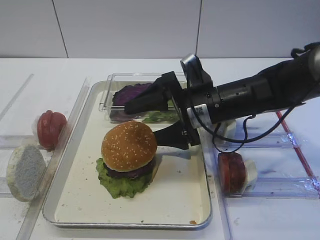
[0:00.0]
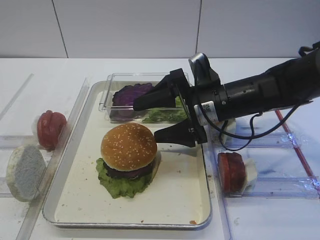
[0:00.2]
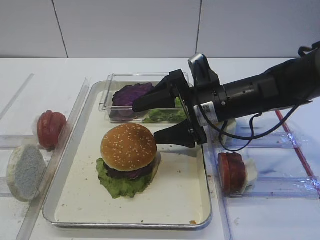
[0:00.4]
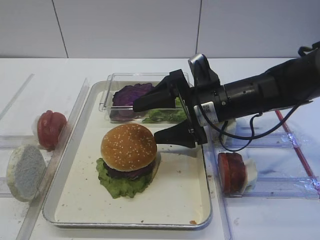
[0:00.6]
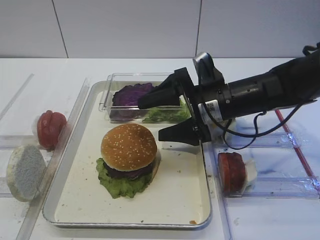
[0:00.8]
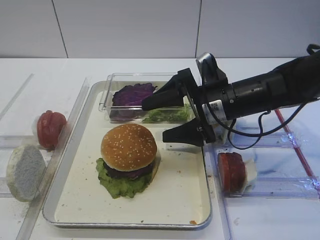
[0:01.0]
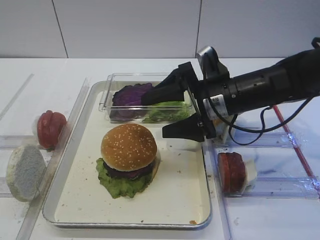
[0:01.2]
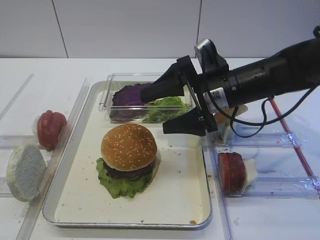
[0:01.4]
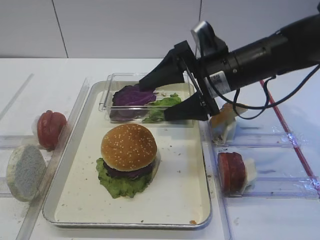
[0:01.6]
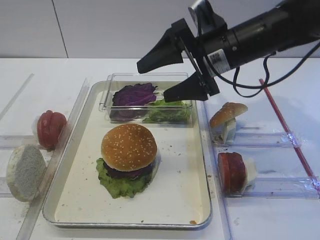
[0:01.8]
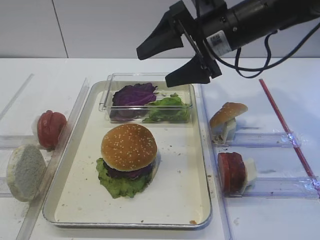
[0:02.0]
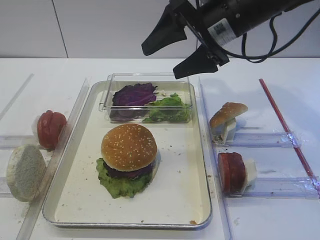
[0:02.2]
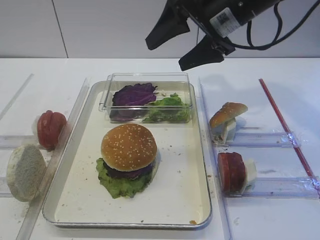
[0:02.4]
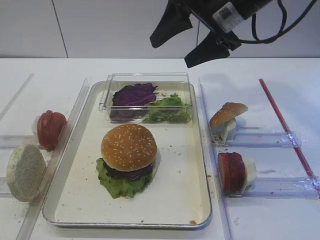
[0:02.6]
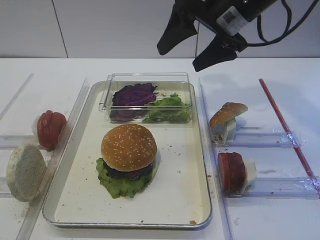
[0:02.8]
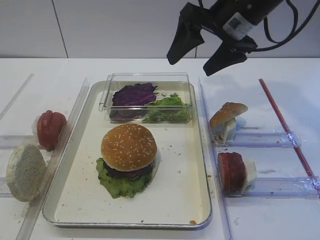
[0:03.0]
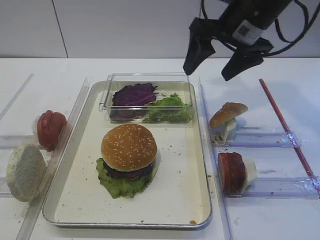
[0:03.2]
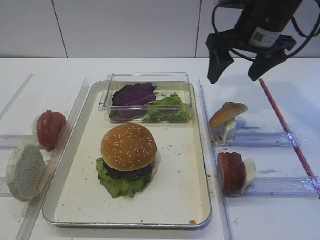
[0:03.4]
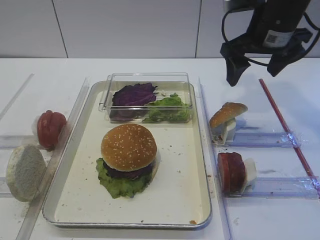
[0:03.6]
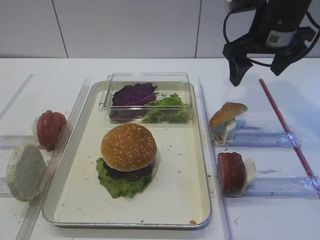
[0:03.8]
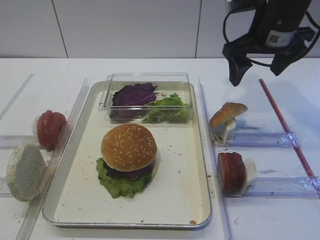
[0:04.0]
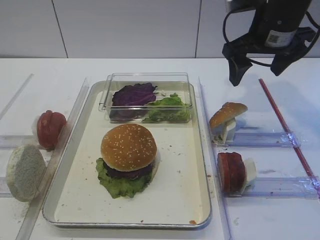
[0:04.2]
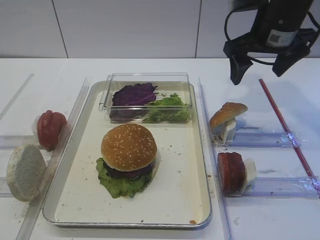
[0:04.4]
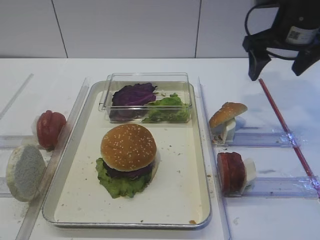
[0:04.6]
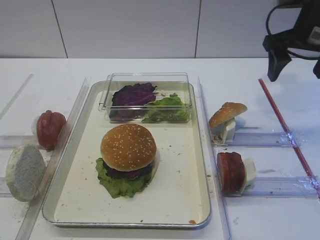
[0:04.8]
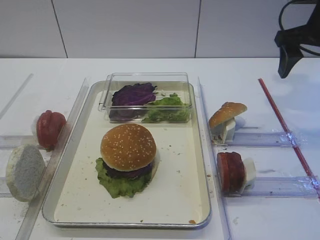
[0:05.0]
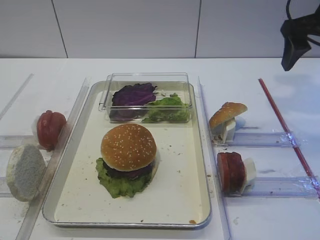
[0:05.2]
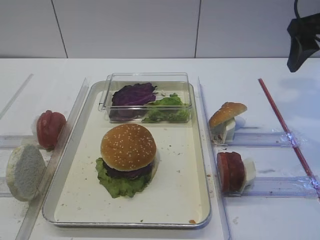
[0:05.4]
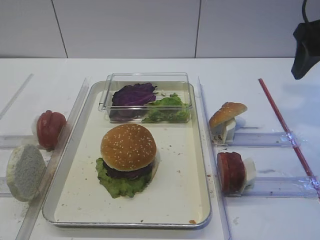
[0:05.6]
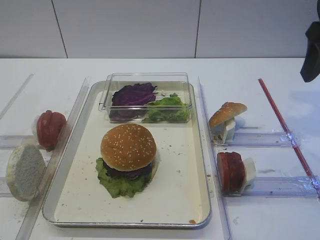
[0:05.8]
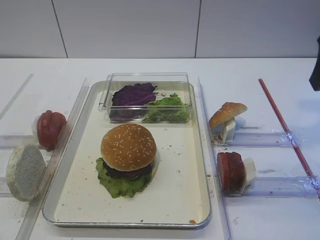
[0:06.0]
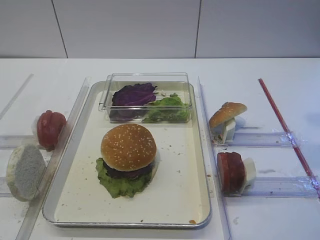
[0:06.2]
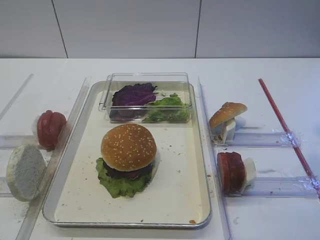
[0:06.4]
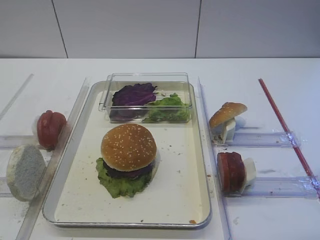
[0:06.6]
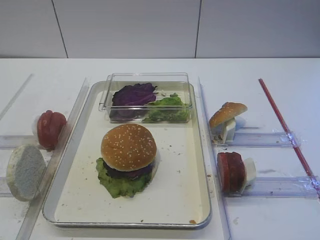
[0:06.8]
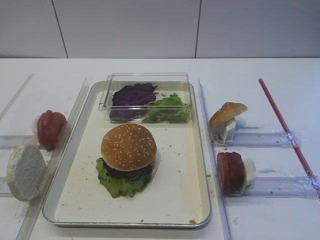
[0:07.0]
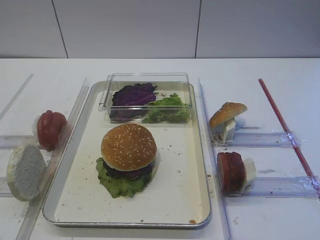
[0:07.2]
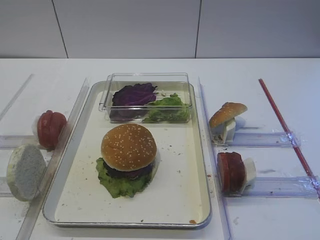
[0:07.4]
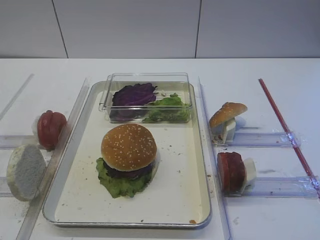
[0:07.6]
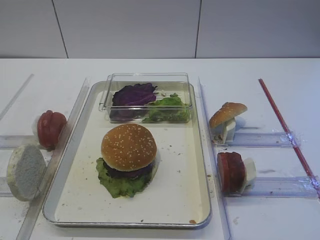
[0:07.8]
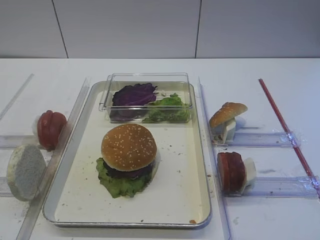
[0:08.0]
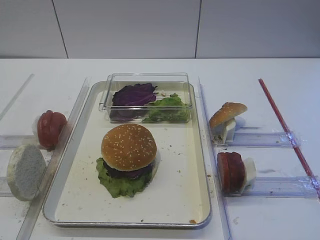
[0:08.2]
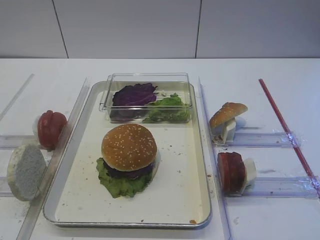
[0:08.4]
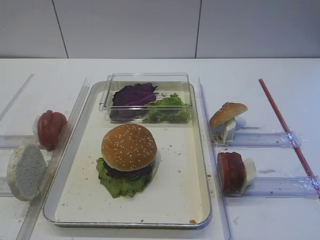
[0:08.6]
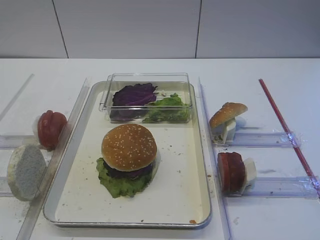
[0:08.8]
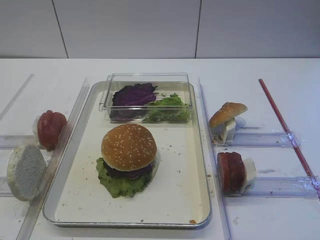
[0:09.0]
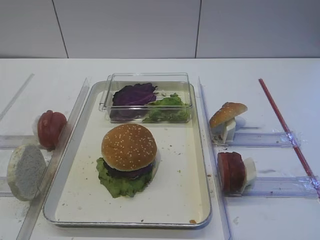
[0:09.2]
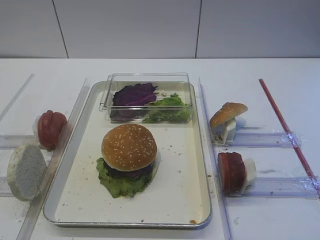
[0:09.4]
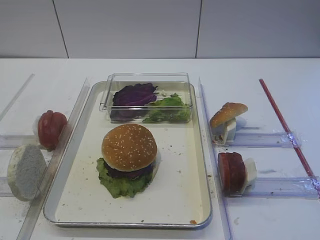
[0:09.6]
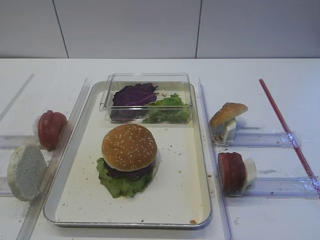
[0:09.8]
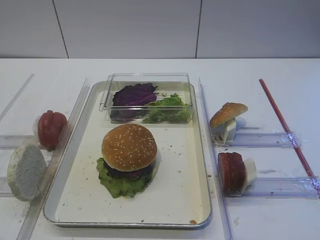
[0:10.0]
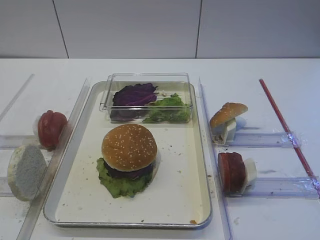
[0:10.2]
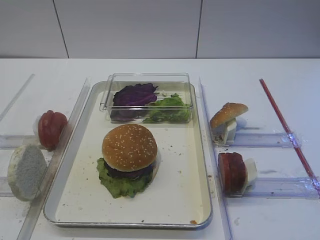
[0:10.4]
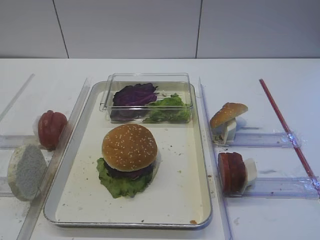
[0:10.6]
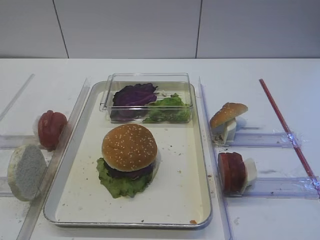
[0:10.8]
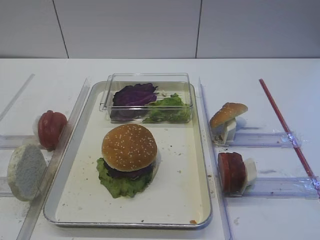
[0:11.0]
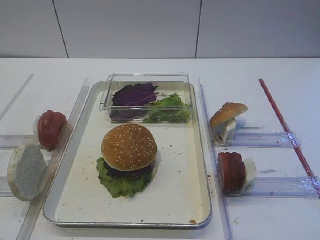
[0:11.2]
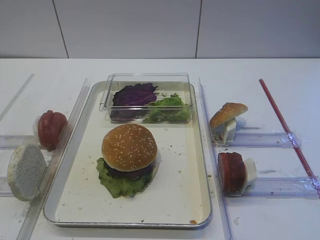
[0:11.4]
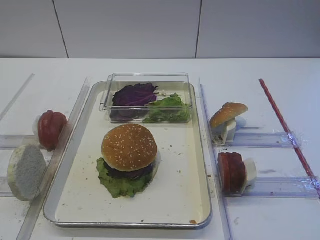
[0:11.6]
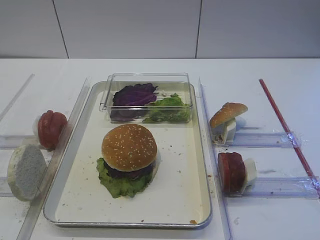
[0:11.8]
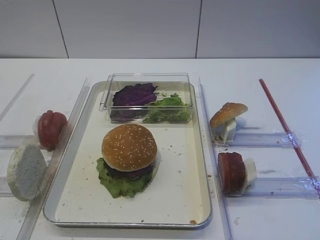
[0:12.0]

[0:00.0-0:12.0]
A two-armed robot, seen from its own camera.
0:00.0 to 0:01.6: The right gripper shifts by some 5 cm.
0:01.6 to 0:03.0: The right gripper moves upward, about 10 cm.
0:03.0 to 0:04.4: The right gripper moves to the right, roughly 5 cm.
0:04.4 to 0:06.0: The right gripper heads backward, to the right and upward, covering some 15 cm.
0:09.0 to 0:10.4: The right gripper shifts by some 5 cm.
0:10.4 to 0:12.0: The two grippers keep their place.

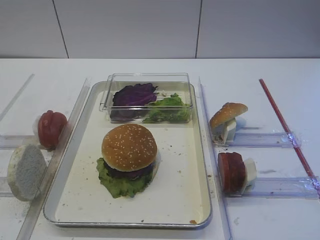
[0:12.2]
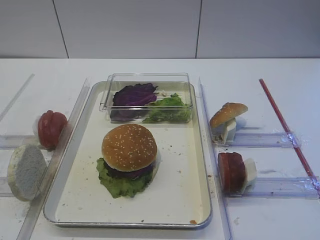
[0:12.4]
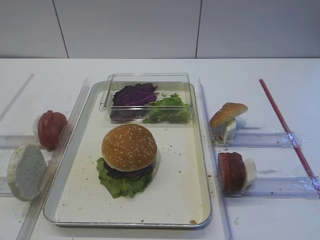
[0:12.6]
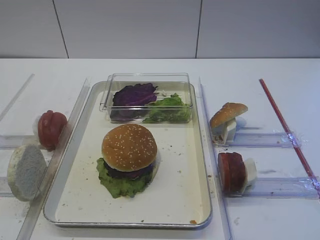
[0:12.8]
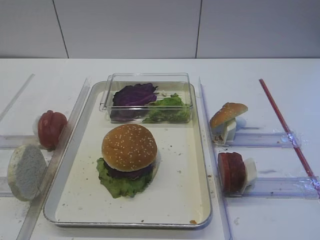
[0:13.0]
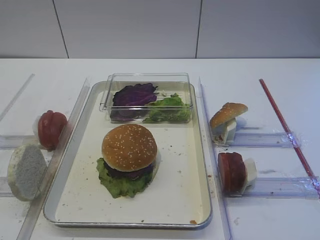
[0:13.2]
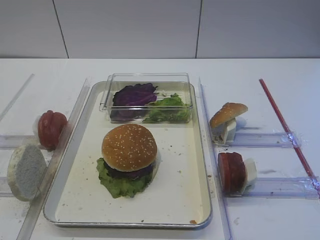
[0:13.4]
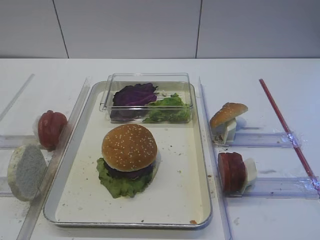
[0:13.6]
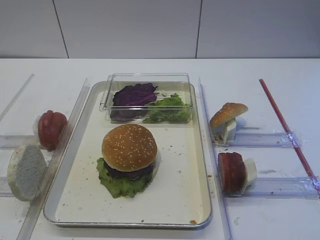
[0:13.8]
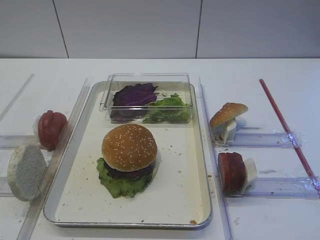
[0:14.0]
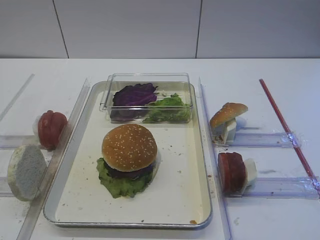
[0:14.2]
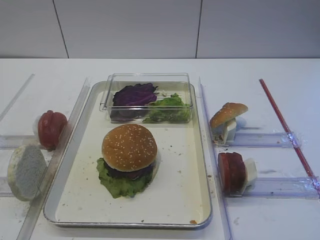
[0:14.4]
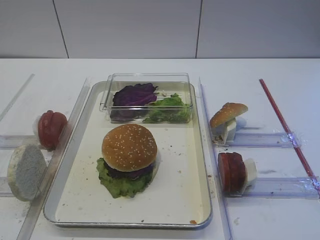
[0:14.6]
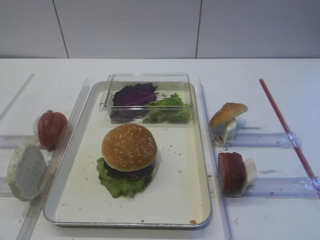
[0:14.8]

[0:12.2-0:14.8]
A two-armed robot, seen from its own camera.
0:12.2 to 0:14.8: Both grippers stay about where they are.

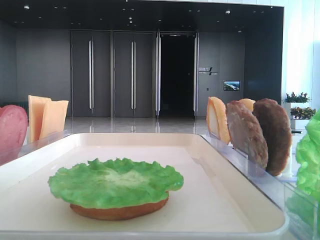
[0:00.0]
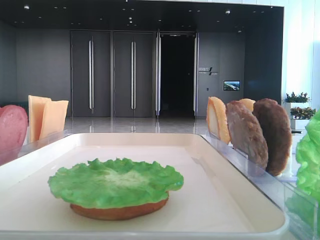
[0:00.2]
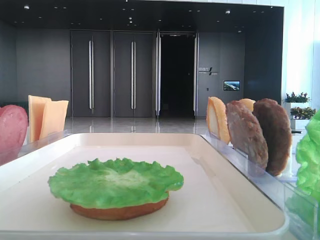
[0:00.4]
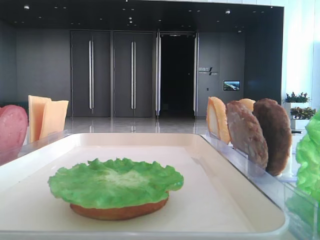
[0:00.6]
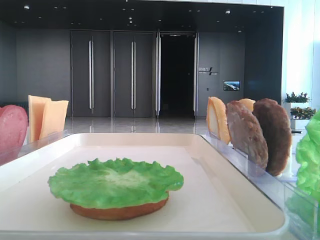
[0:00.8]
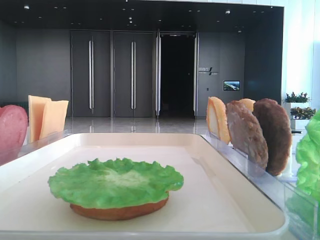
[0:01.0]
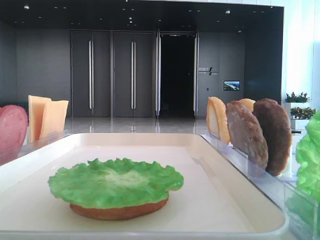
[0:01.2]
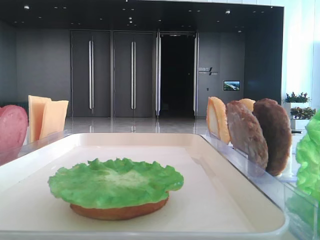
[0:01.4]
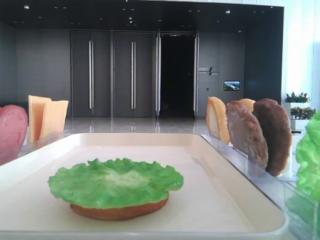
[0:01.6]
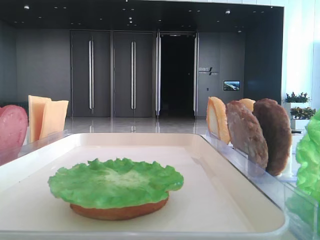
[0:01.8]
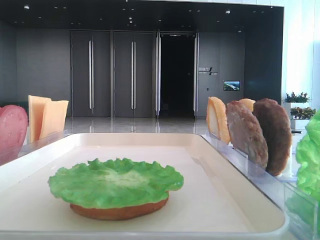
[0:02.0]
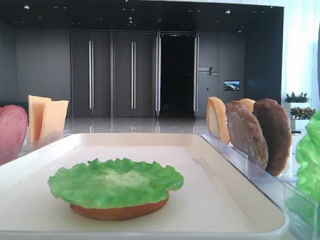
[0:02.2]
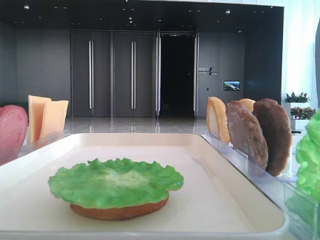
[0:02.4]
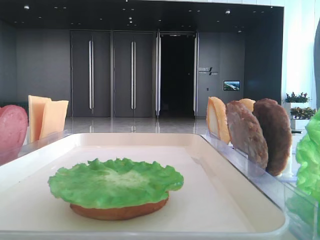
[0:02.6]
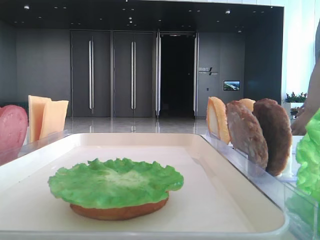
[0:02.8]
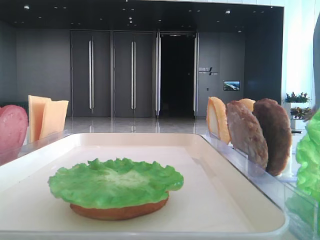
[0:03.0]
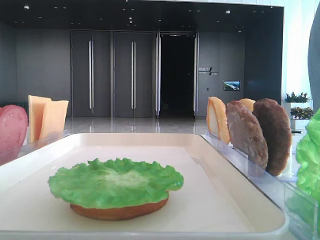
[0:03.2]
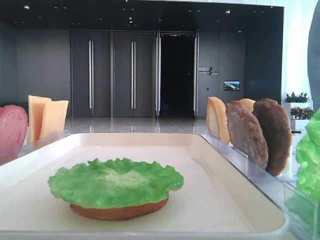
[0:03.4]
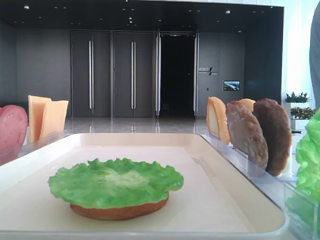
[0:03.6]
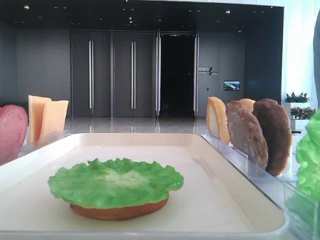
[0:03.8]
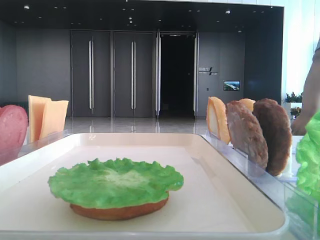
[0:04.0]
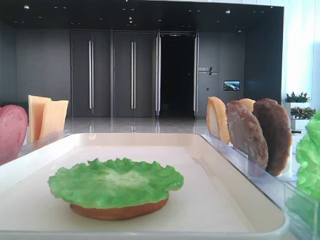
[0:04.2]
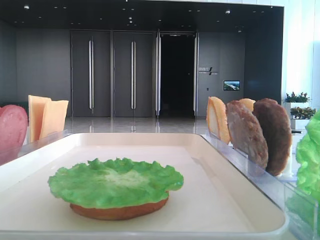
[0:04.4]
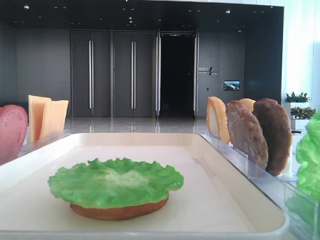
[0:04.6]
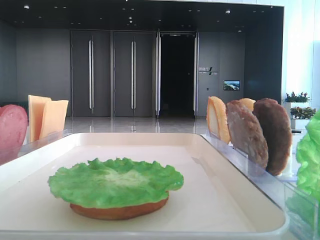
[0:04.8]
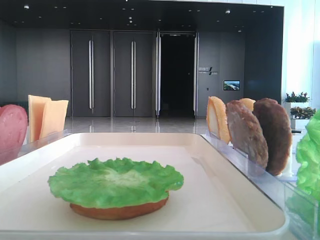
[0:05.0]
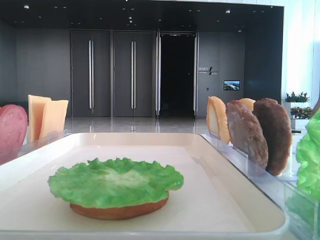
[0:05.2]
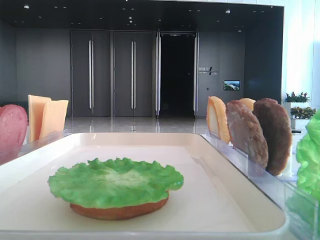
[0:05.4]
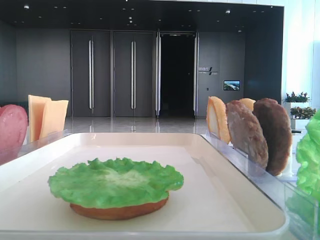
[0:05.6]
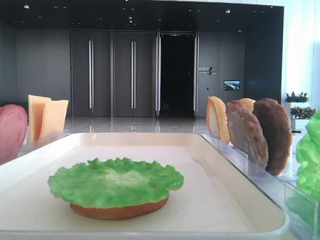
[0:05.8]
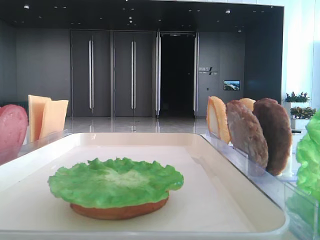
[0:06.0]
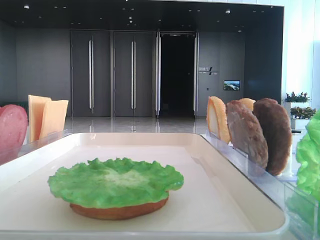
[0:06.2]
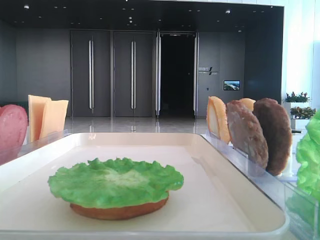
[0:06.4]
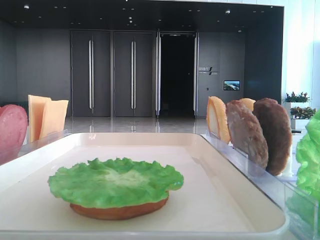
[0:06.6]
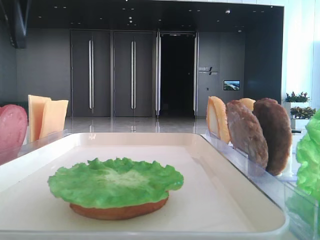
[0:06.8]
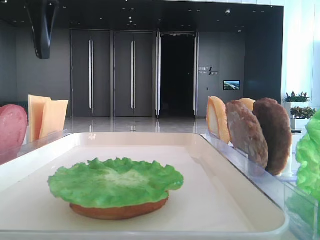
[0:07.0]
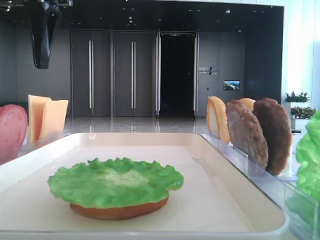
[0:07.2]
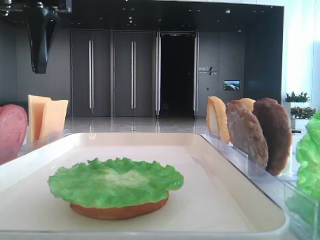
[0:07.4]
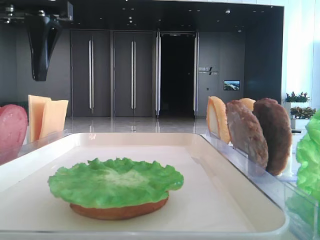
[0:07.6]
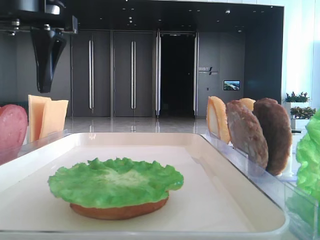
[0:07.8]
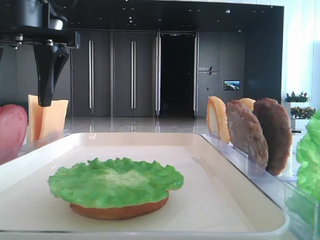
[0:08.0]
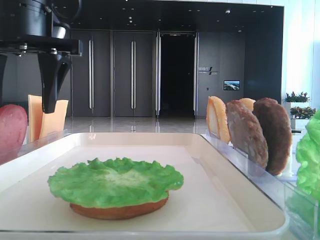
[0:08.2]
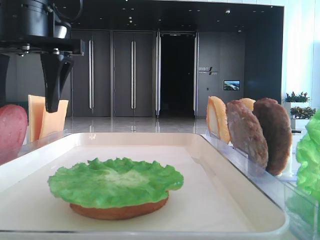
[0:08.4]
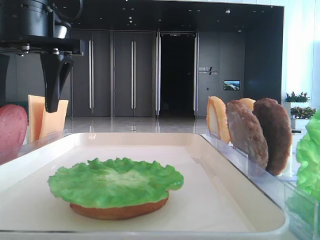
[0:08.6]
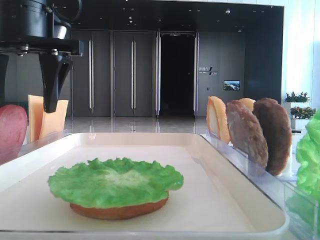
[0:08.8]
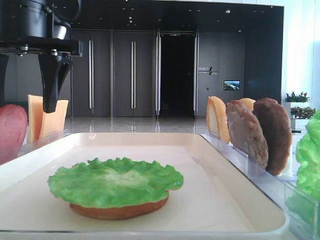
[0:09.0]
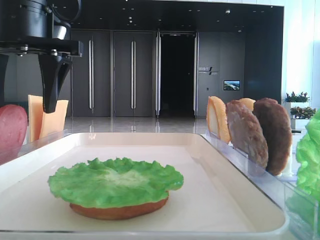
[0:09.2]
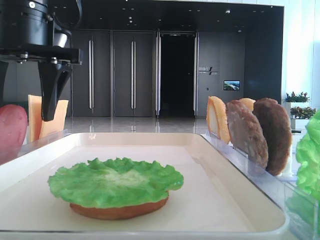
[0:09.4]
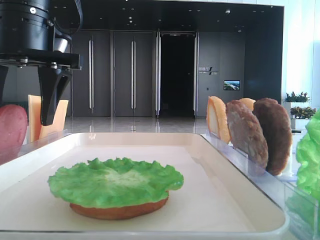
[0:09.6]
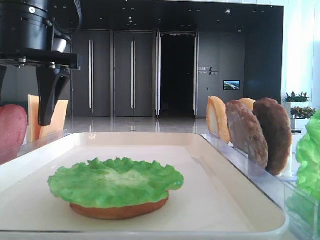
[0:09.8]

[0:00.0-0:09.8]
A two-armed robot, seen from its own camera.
0:01.4 to 0:02.8: Neither gripper changes place.
0:07.0 to 0:08.4: The left gripper goes some 5 cm downward.
0:08.4 to 0:09.8: There are only small adjustments of the grippers.
